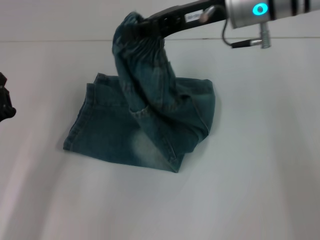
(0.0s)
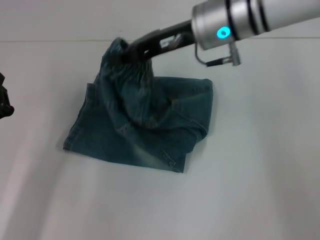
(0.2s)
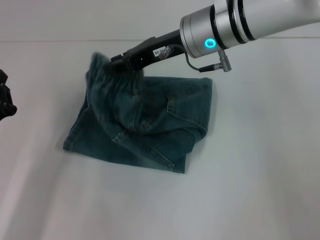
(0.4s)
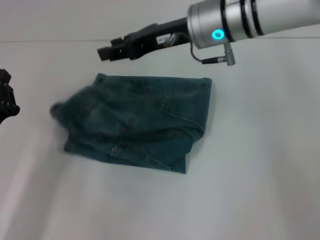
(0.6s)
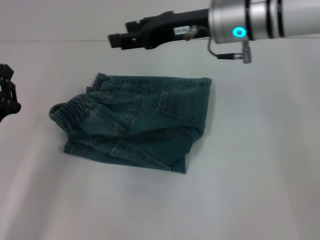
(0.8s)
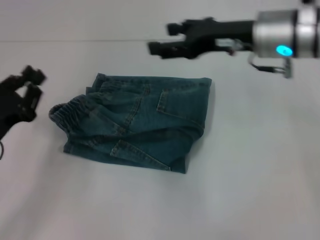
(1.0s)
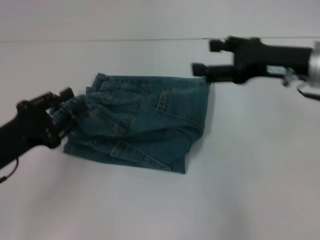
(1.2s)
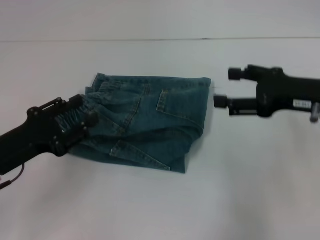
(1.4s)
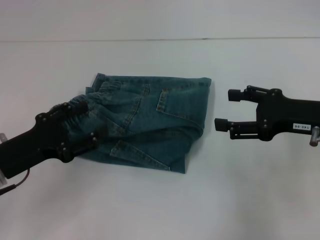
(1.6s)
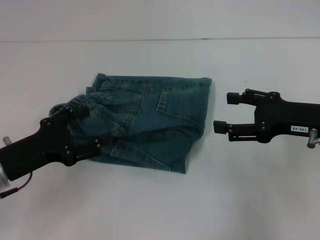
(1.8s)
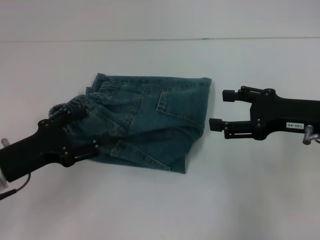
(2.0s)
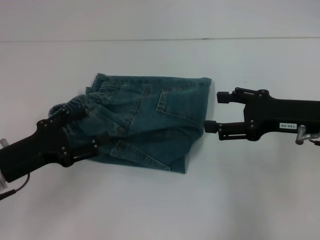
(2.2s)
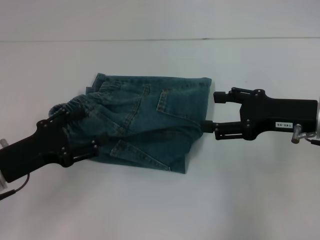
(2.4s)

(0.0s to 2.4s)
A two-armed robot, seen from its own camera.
0.0s - 1.2s: The right gripper goes roughly 15 cm to the right, downward and backward, and opens up.
1.2s - 2.4s: The right gripper shifts by approximately 5 cm; the left gripper opens up.

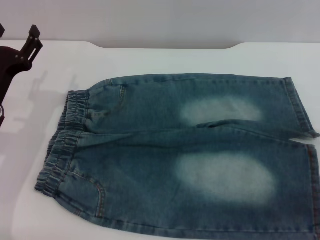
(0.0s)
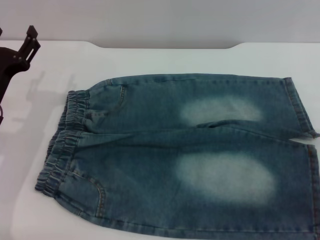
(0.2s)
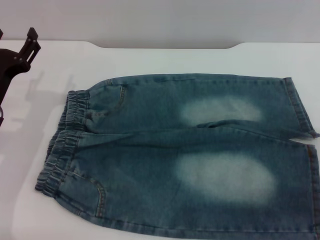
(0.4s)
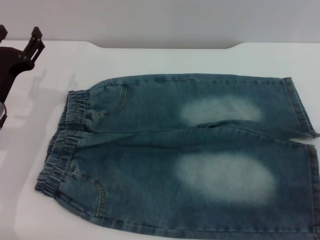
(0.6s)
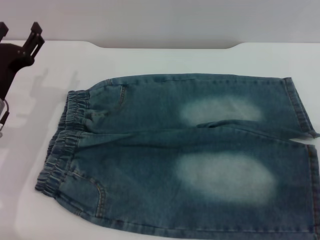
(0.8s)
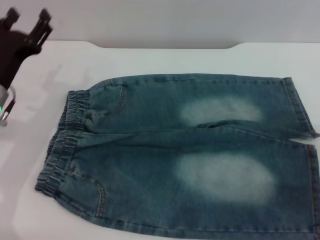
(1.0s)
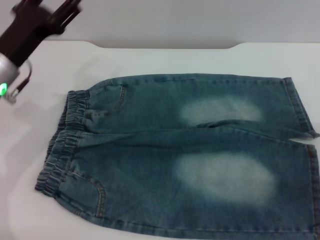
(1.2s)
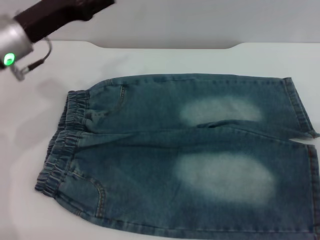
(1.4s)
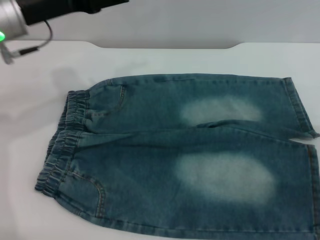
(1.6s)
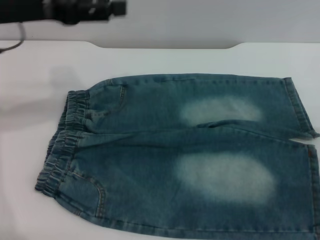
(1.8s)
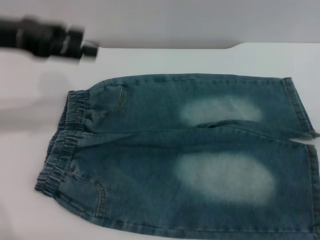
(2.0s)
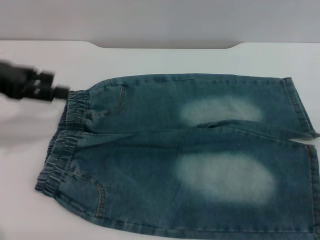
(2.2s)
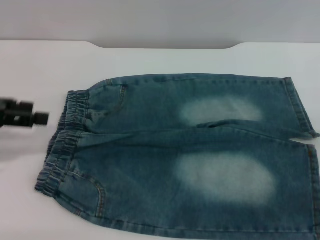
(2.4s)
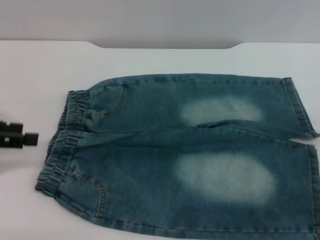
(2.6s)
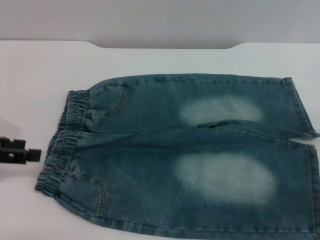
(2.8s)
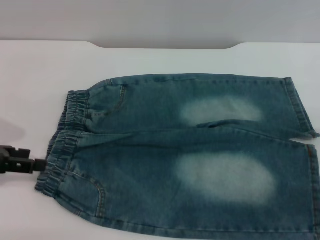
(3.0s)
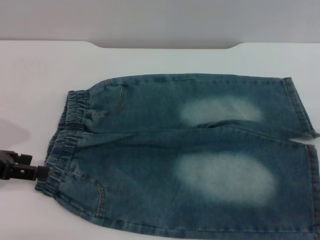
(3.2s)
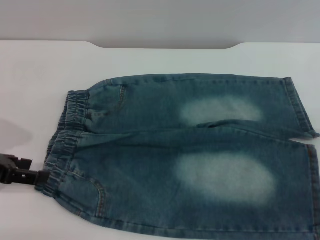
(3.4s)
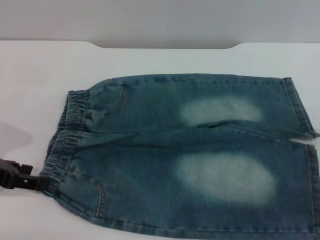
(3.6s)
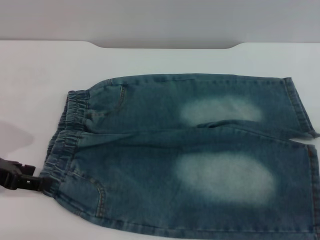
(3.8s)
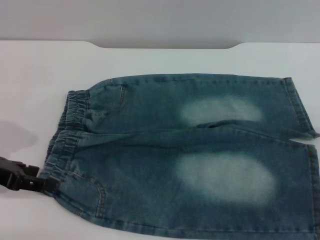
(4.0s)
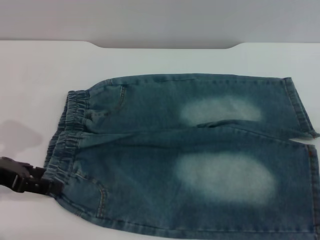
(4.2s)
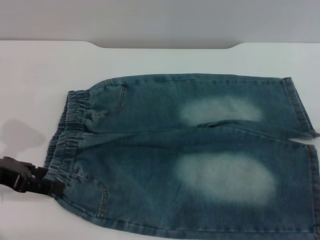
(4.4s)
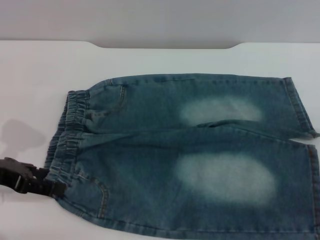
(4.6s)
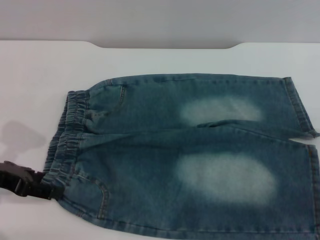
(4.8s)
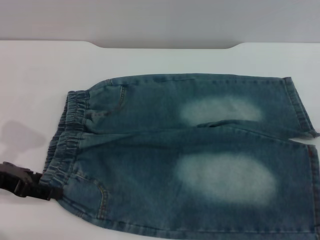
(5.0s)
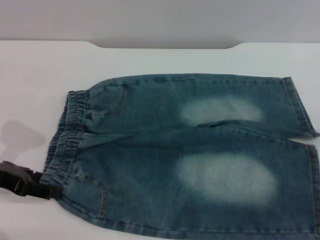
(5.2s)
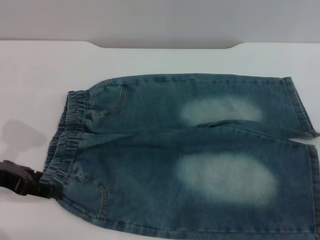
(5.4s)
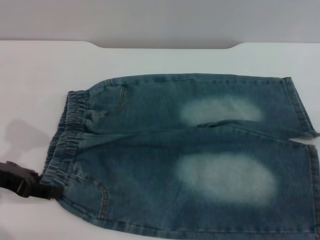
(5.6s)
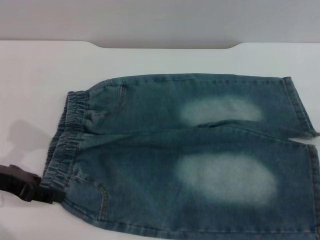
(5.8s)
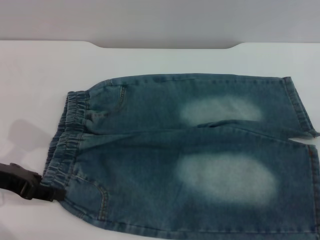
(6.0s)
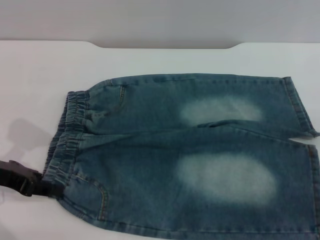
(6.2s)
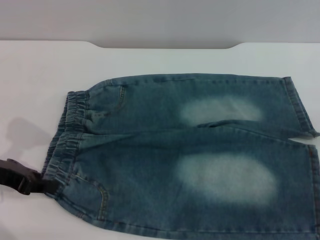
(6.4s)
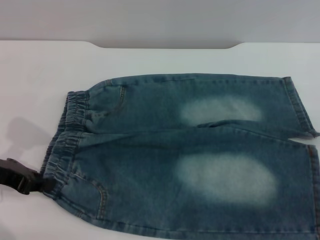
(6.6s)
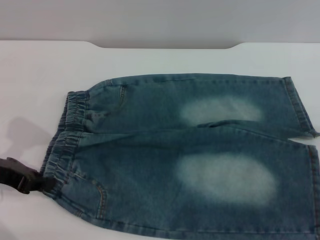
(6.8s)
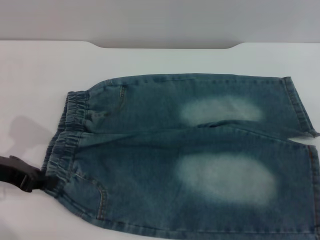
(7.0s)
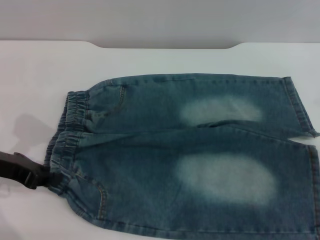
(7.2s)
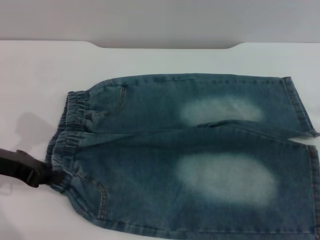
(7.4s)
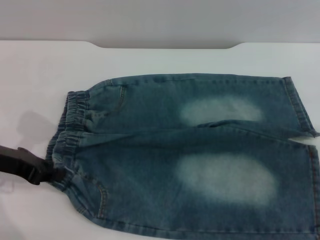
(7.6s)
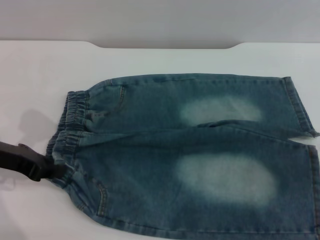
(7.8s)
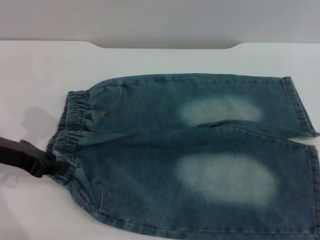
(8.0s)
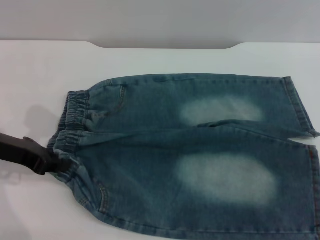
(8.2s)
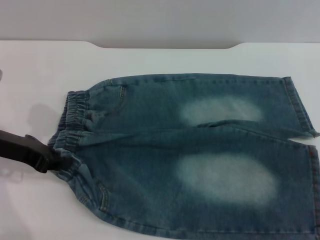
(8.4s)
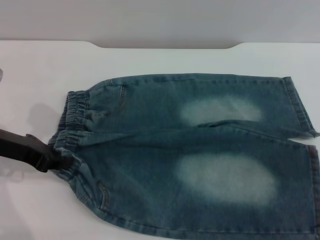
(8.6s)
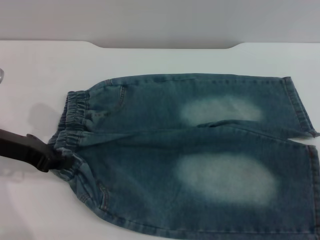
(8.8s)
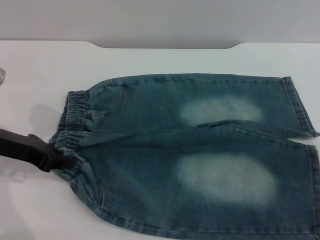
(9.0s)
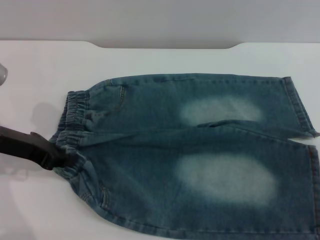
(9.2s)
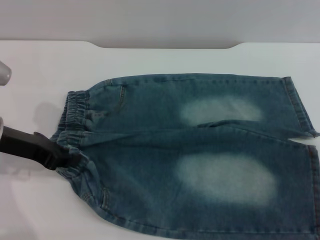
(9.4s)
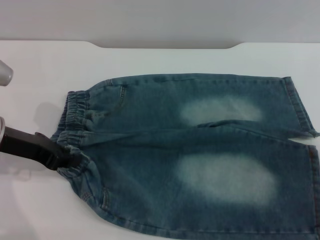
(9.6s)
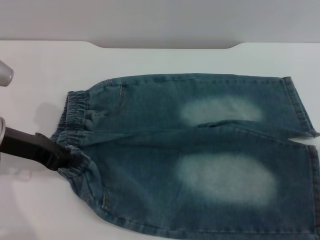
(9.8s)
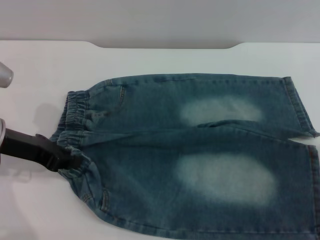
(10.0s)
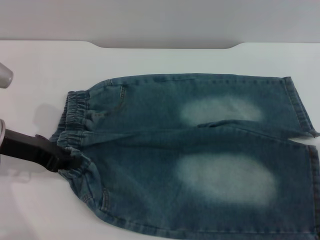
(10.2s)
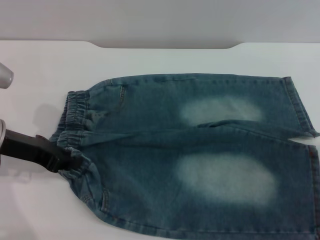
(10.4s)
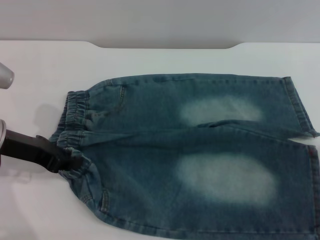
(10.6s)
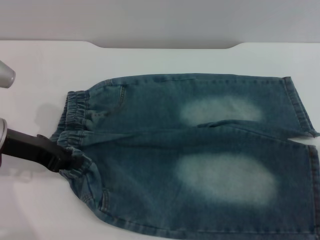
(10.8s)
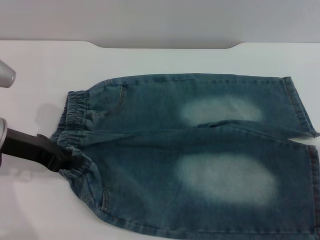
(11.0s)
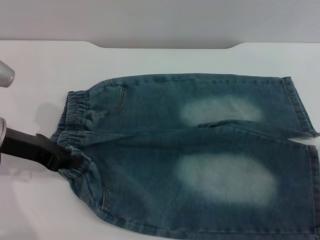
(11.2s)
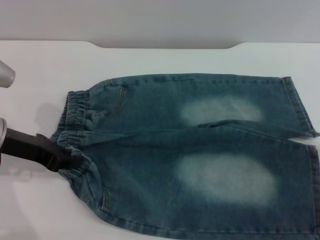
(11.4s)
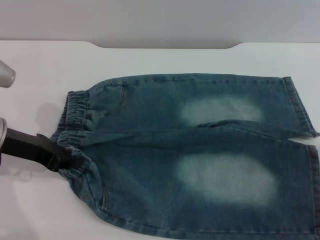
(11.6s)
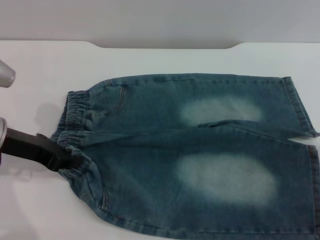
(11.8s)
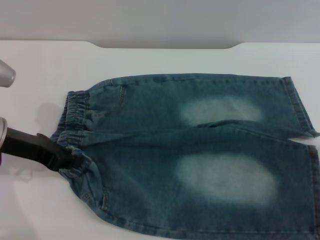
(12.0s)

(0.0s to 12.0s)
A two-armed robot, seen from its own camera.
0.0s - 1.6s: The left gripper moves upward and forward, roughly 15 cm.
1.6s - 3.0s: The left gripper heads to the left, backward and downward, covering approximately 15 cm.
3.0s - 6.0s: There are only small adjustments of the grippers.
6.0s - 7.6s: The left gripper closes.
9.0s - 10.4s: The grippers move only a little.
10.4s - 12.0s: The two grippers keep their place.

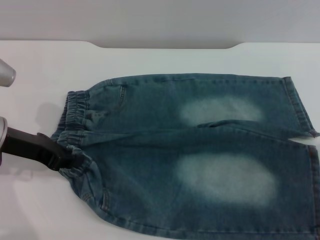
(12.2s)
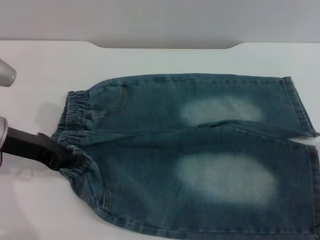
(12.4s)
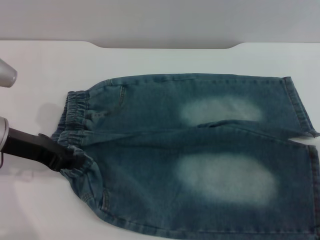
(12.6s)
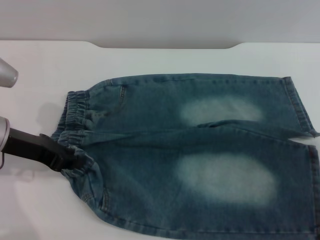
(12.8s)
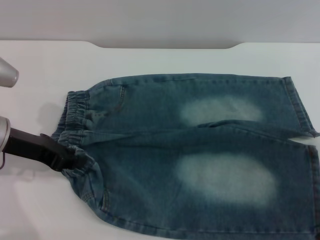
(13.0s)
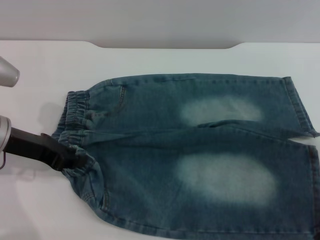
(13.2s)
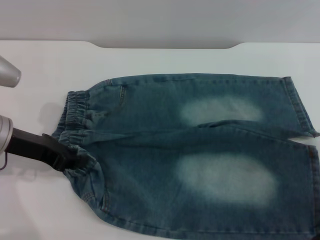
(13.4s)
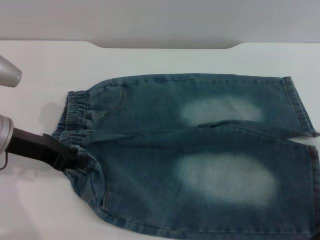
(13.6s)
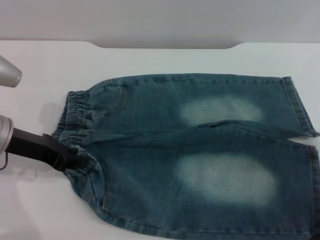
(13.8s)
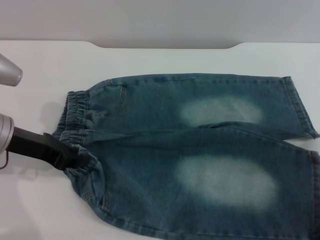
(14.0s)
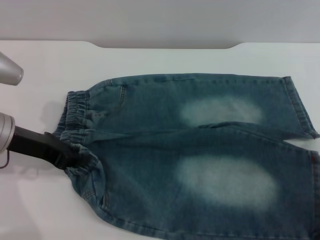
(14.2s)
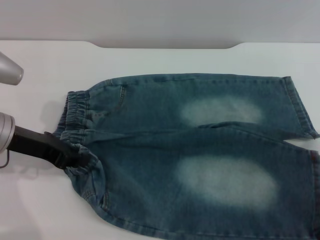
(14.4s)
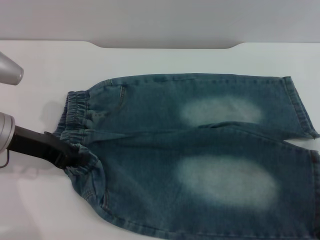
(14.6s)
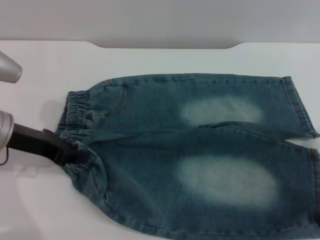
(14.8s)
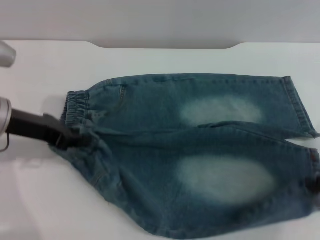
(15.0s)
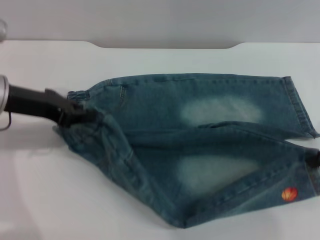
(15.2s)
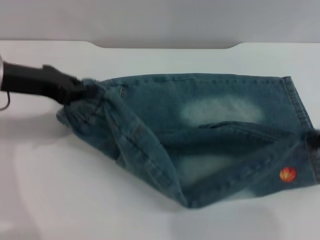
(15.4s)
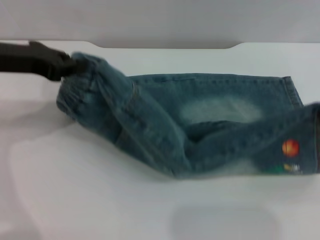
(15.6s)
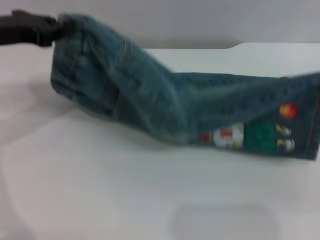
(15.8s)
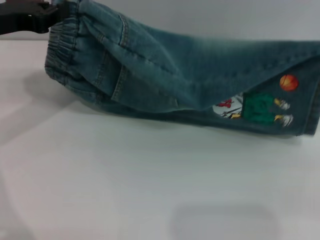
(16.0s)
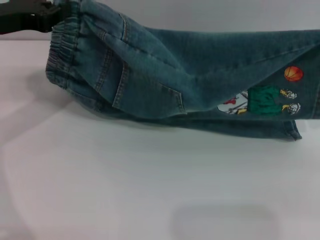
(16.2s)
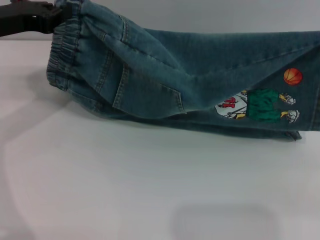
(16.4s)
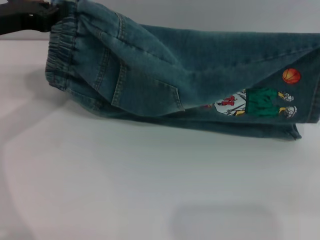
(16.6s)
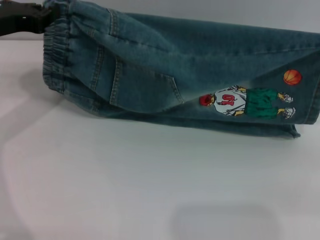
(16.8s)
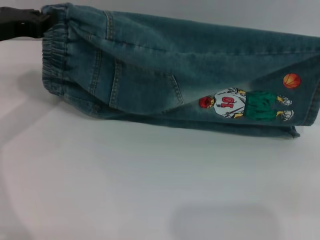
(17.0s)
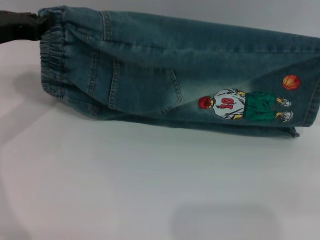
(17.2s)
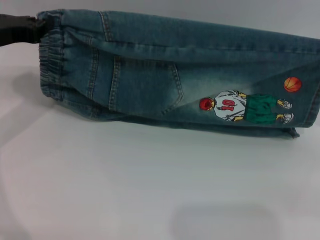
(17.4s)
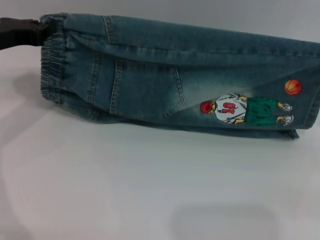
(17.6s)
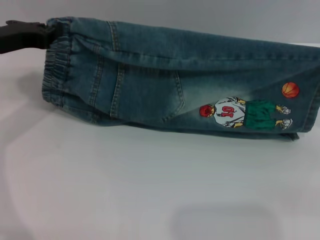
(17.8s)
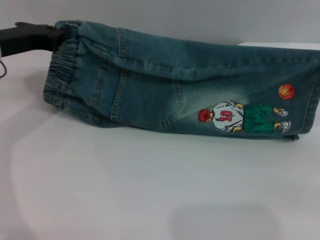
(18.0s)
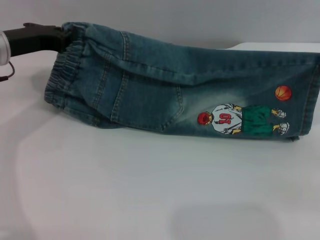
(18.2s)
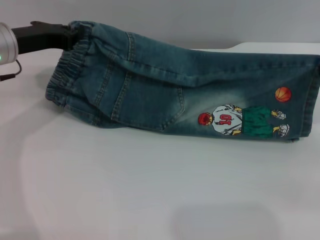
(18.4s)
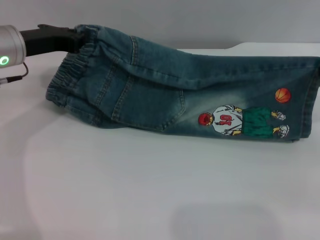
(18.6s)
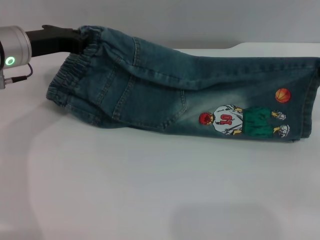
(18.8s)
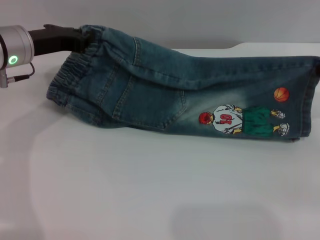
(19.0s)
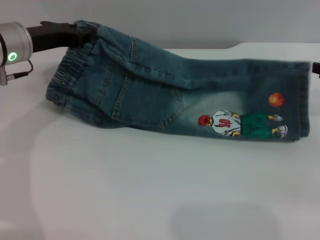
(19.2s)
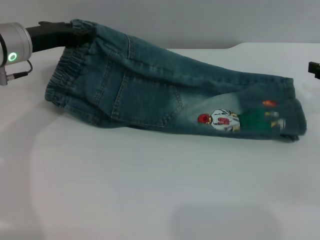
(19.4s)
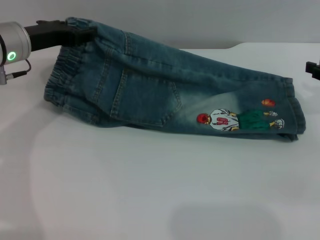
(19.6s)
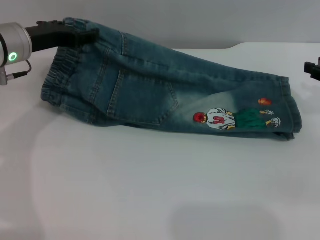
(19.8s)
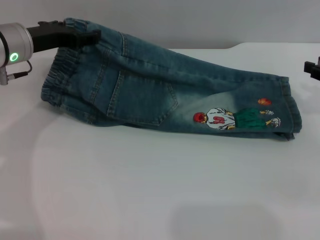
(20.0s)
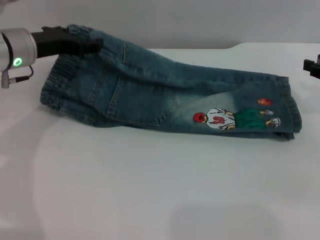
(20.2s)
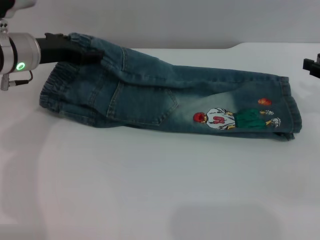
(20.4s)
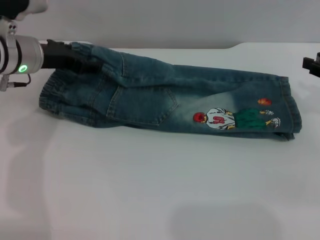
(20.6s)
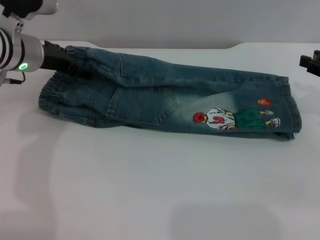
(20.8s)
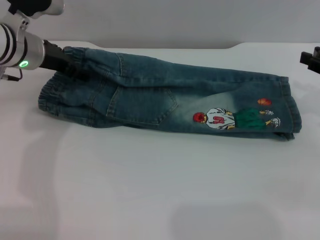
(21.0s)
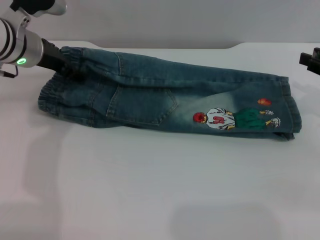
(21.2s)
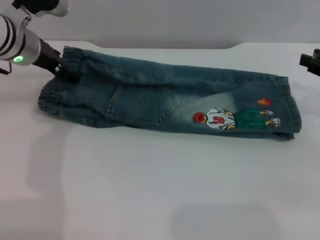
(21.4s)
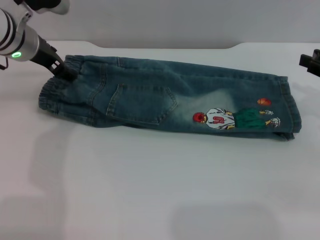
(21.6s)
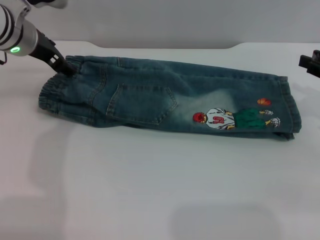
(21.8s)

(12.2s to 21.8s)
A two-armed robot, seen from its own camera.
Step, 12.2s - 21.2s: Fold the bottom of the pants upward with both grippers.
12.2s - 13.8s: There are only small adjustments of the grippers.
13.8s - 15.4s: The grippers both shift upward by approximately 5 cm. The right gripper closes.
17.0s - 18.6s: The left gripper ends up about 5 cm from where it was, while the right gripper moves downward, approximately 5 cm.
18.6s - 20.2s: The left gripper opens up. Meanwhile the right gripper opens up.
